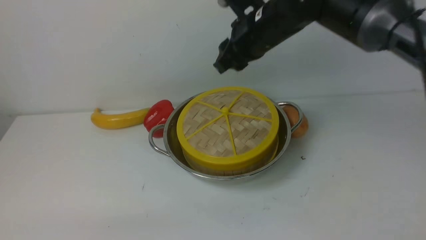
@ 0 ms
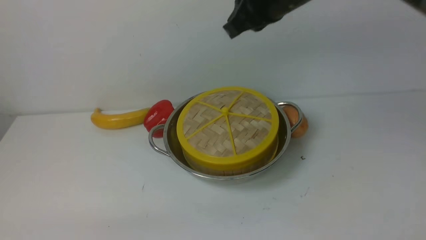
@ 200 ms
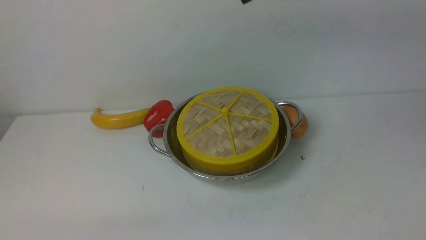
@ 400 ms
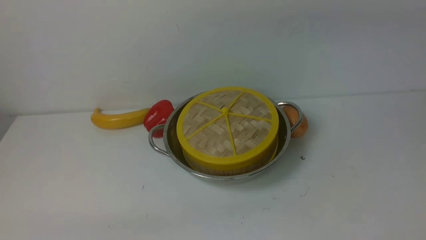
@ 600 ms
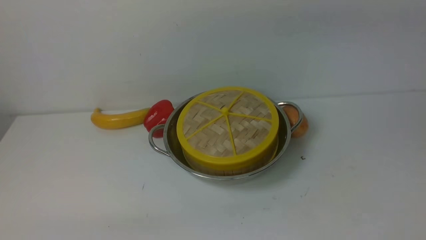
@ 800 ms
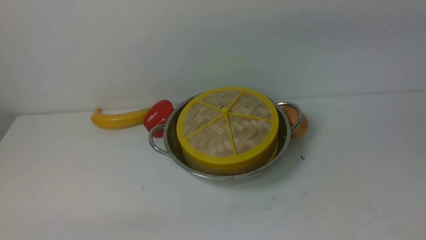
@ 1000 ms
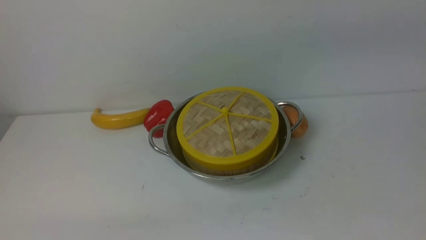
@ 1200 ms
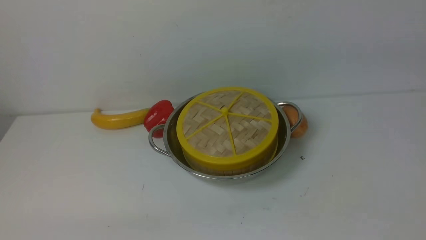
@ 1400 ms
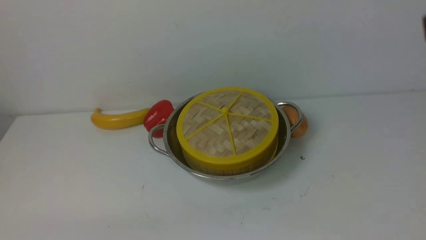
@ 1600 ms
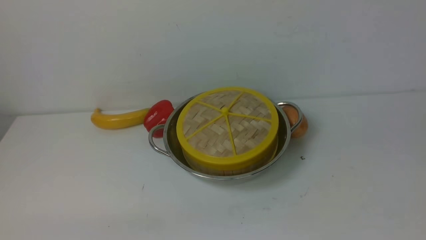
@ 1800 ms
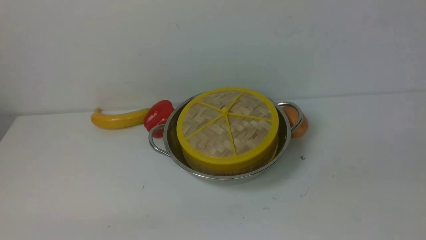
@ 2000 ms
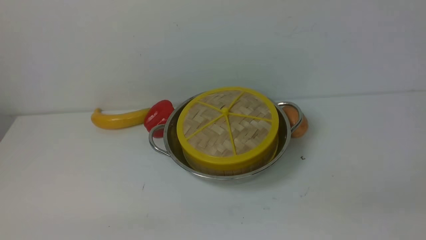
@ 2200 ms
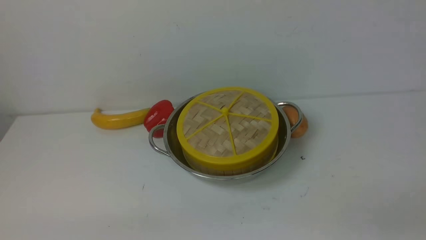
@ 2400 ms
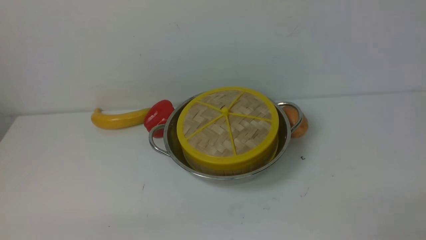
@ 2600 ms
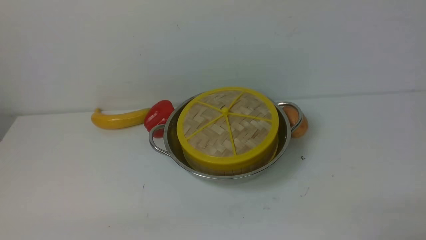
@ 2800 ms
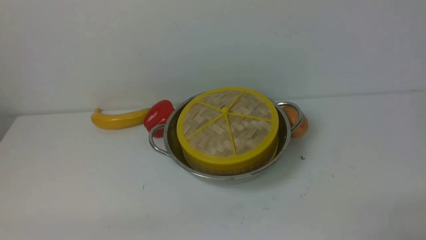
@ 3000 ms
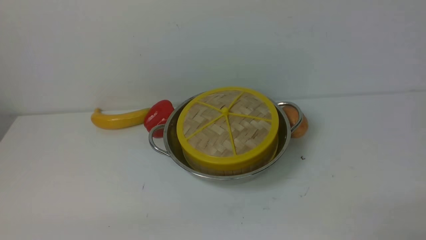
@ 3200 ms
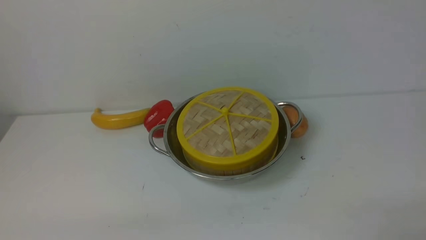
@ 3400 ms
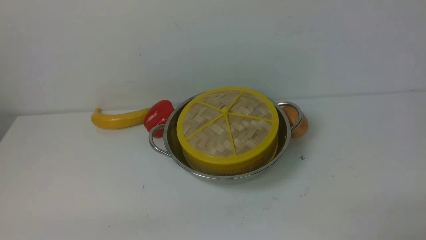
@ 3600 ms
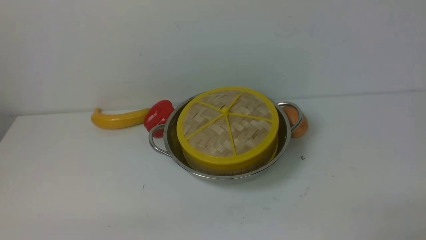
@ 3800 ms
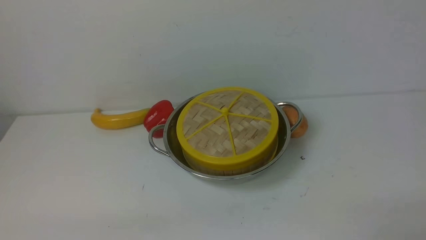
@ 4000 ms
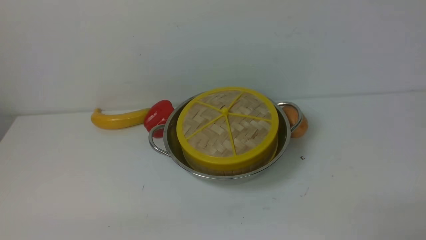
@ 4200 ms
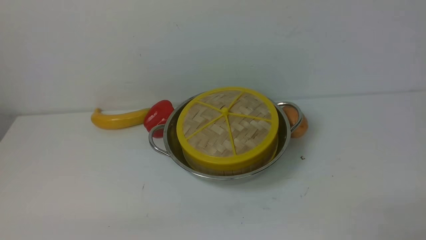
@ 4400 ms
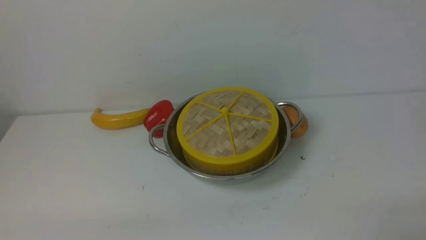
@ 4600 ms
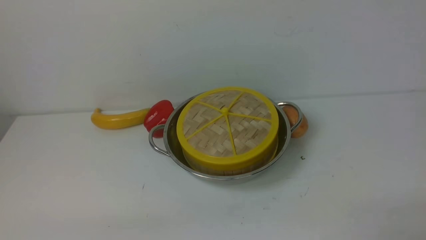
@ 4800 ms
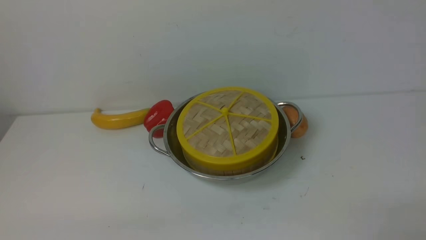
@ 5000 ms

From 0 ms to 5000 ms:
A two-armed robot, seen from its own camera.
Task of the whole recording: place the steamer in the pot on the white table, and put the lid on the steamer.
From 0 ms to 1600 ms: The right gripper travels backward, upward and to the right by some 35 cm, and closes.
From 3400 ms to 5000 ms: Both grippers stay about where they are.
